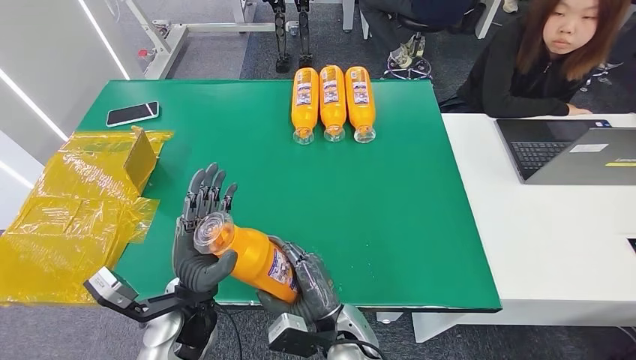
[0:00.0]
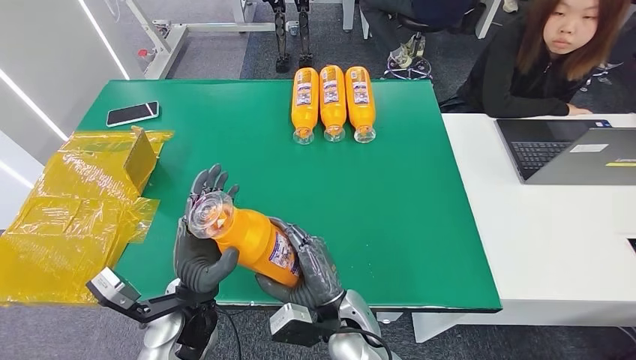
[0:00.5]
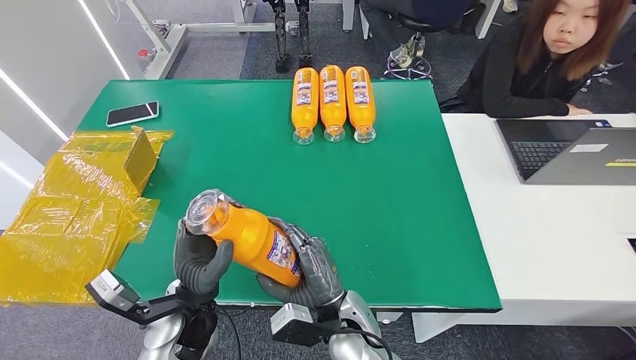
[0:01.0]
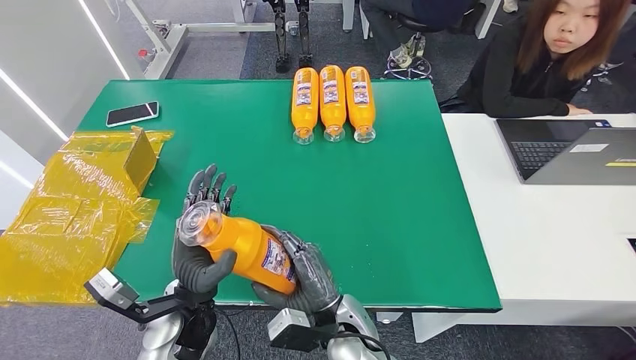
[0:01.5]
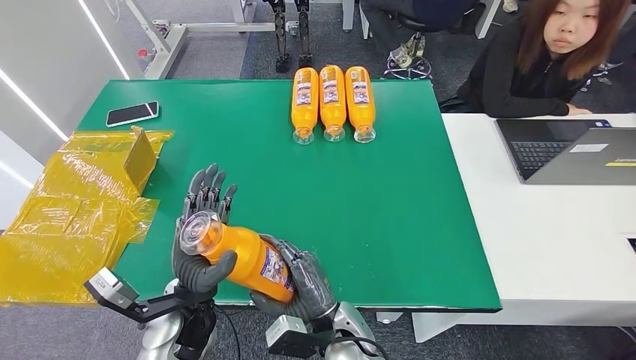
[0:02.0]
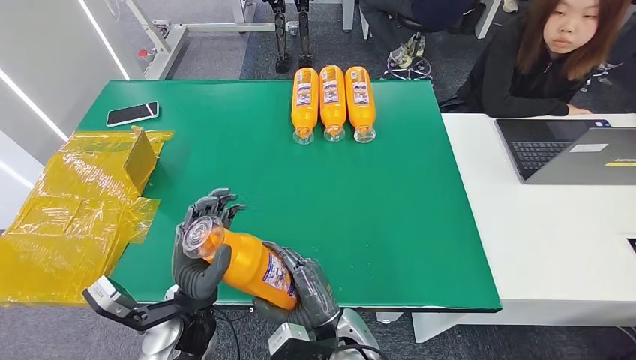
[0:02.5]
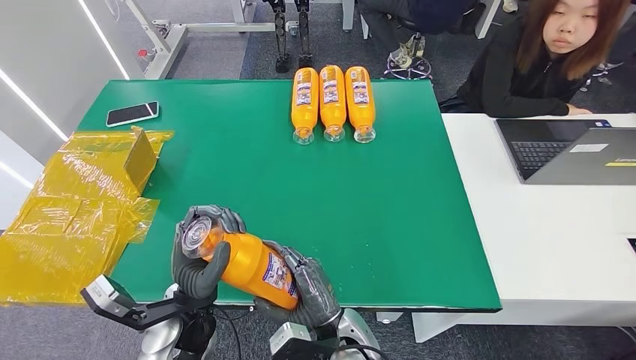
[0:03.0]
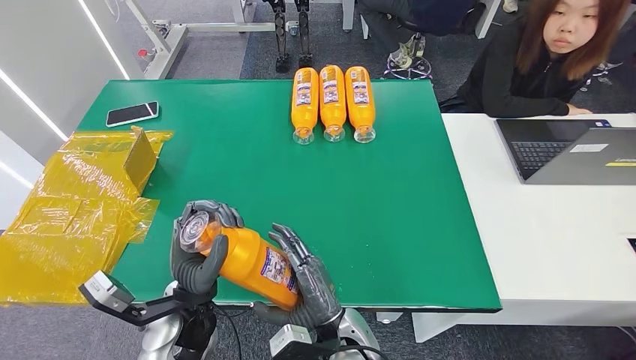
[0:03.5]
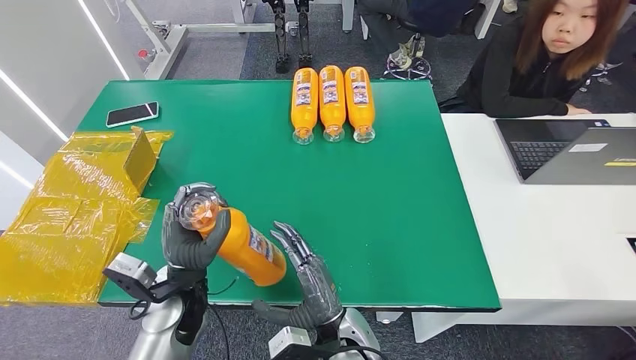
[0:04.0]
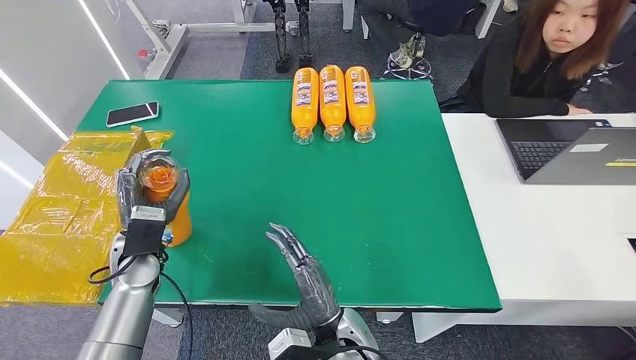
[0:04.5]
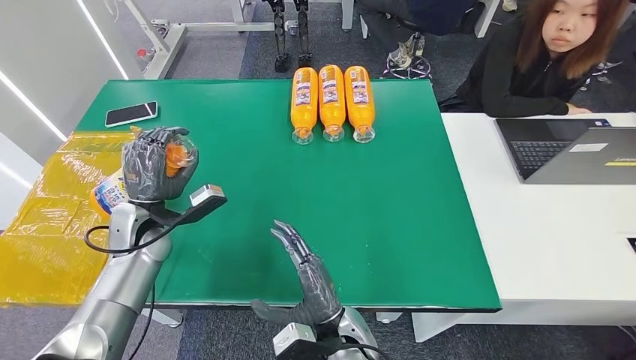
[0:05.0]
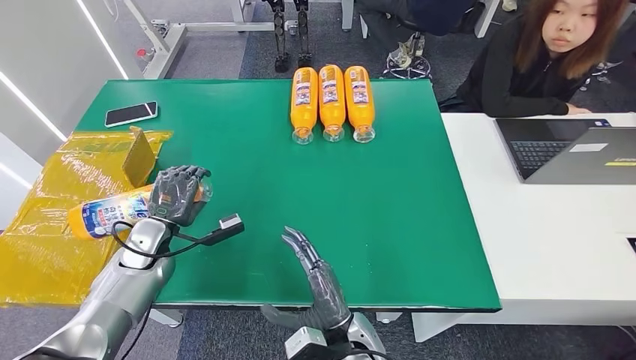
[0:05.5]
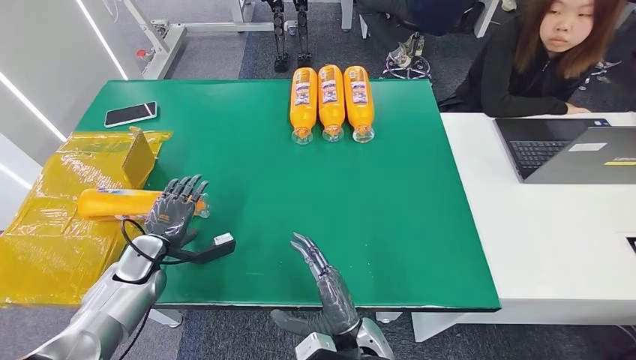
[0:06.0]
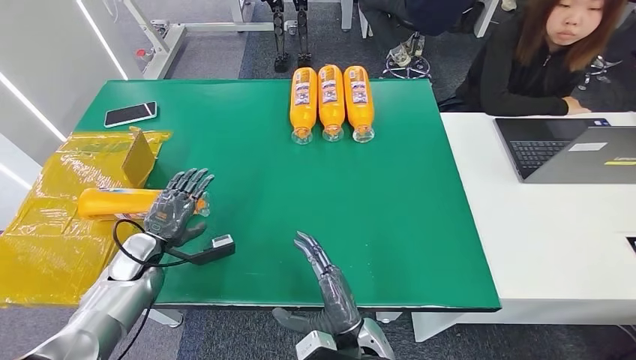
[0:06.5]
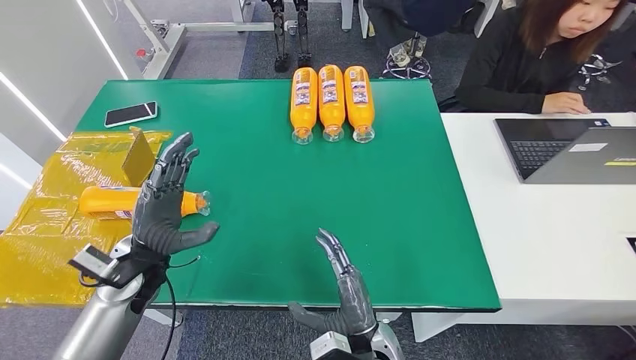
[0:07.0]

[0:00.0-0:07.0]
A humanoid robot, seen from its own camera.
Step, 0:00.0 to 0:07.0: Turn the bottle to the front side.
0:00.0 to 0:02.0: There are only small adjustments of the hands.
0:02.0 to 0:03.5: Both hands stay put.
0:03.5 to 0:05.0: The left hand heads to the left and forward, covering roughly 20 cm.
0:05.0 to 0:07.0: The right hand is displaced to the right by some 5 cm. The left hand moves backward, approximately 5 cm, and moves about 10 cm downward and comes back.

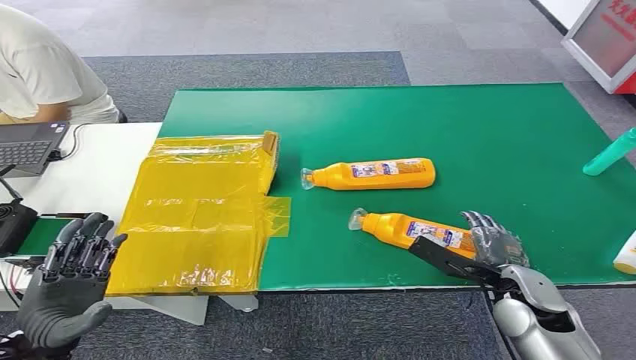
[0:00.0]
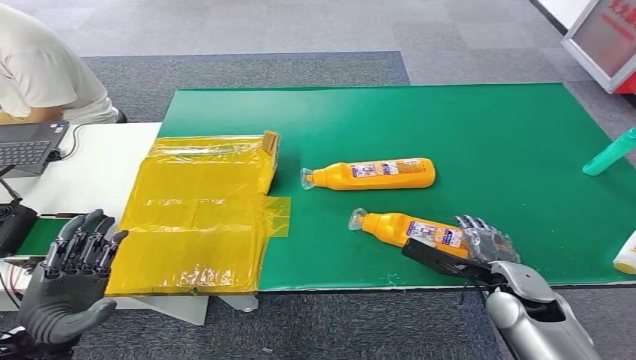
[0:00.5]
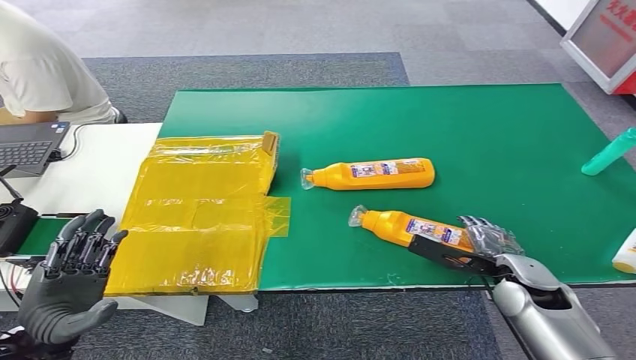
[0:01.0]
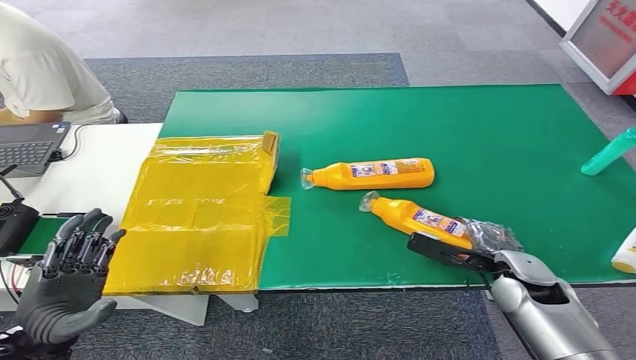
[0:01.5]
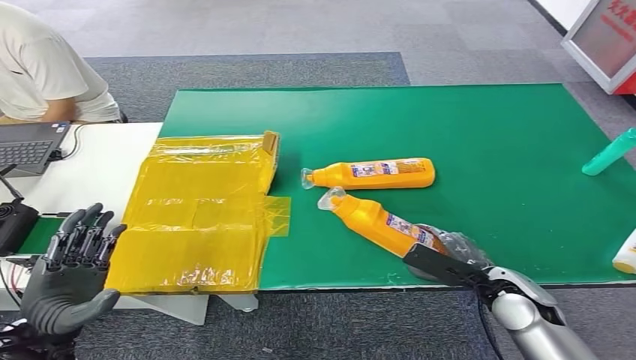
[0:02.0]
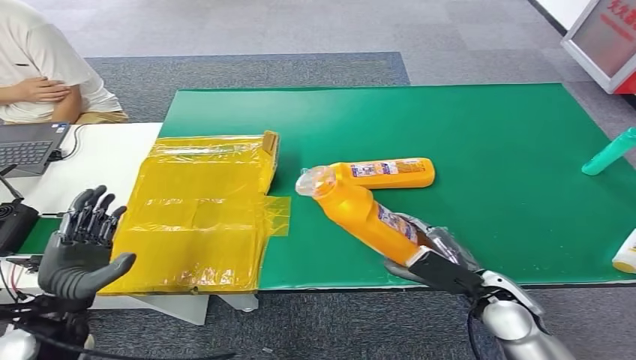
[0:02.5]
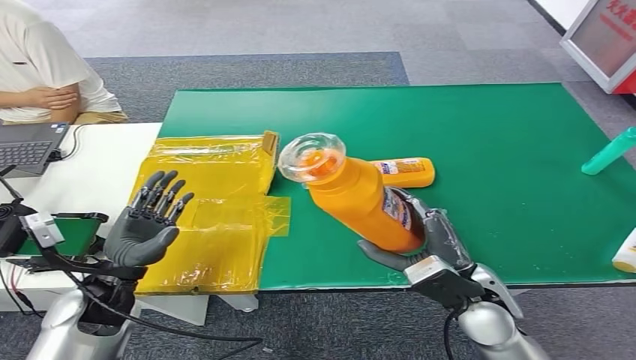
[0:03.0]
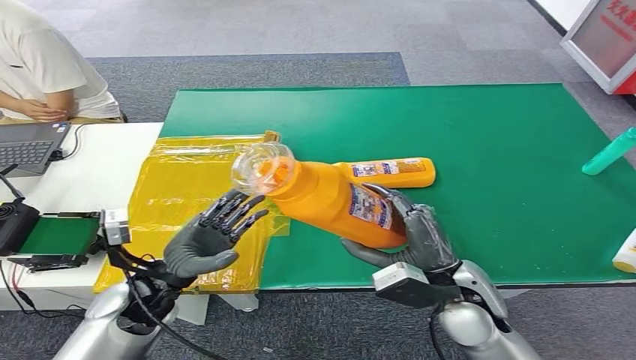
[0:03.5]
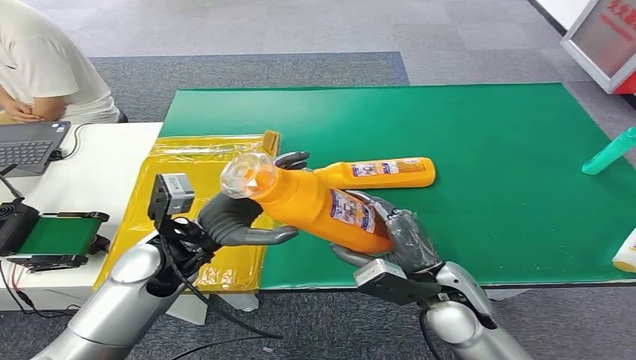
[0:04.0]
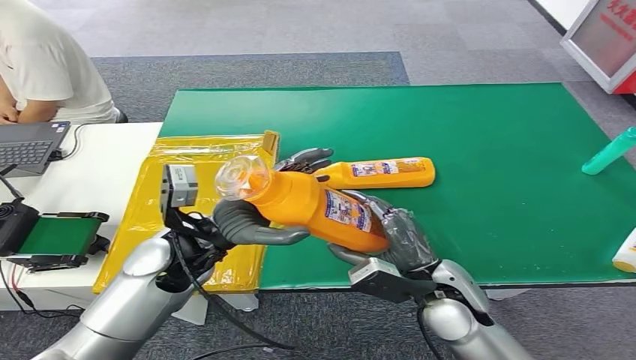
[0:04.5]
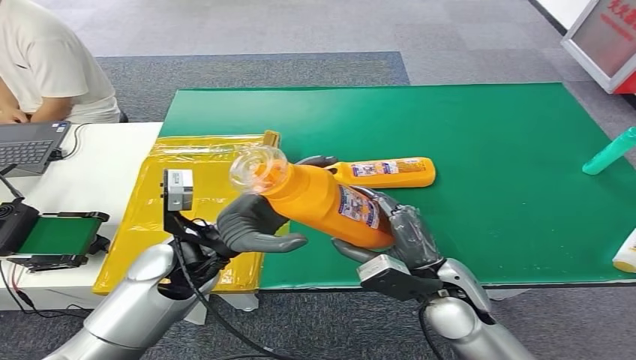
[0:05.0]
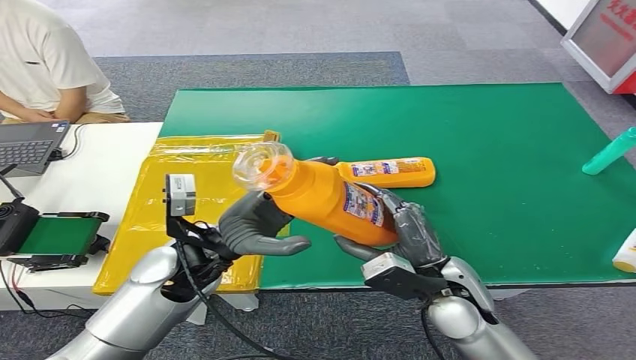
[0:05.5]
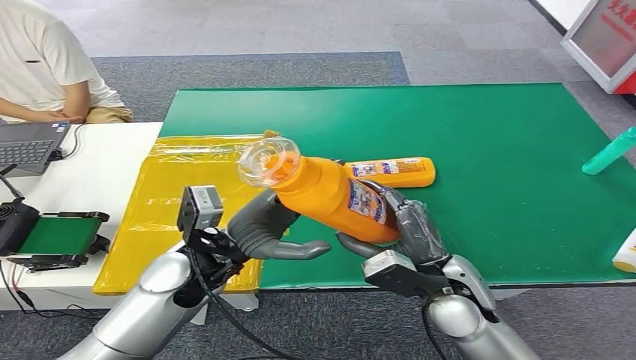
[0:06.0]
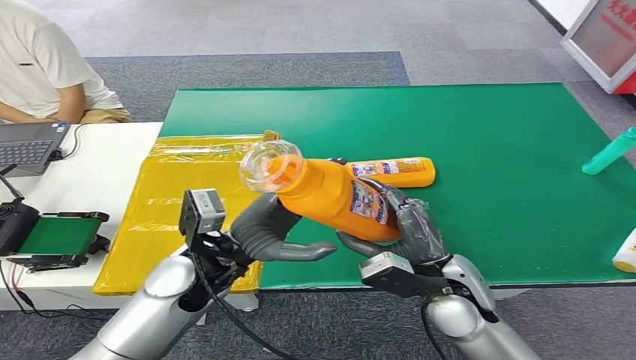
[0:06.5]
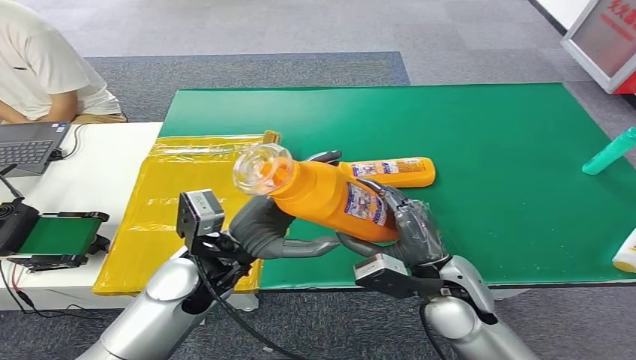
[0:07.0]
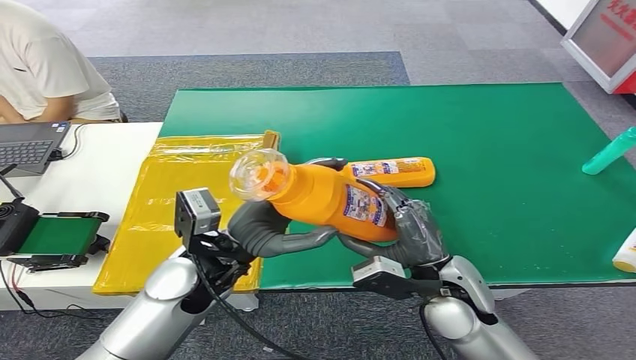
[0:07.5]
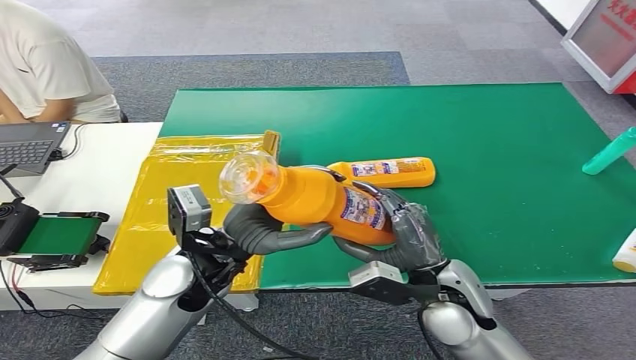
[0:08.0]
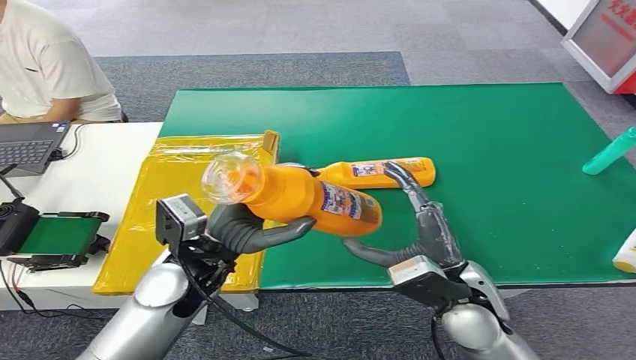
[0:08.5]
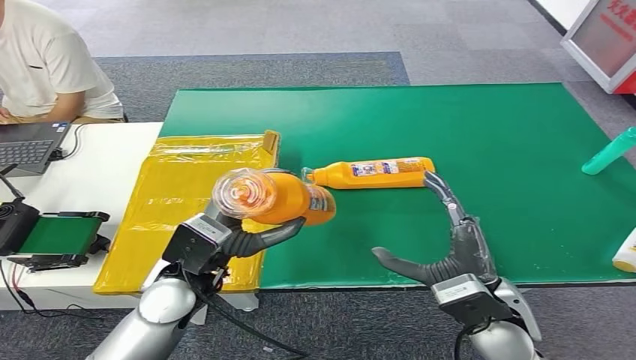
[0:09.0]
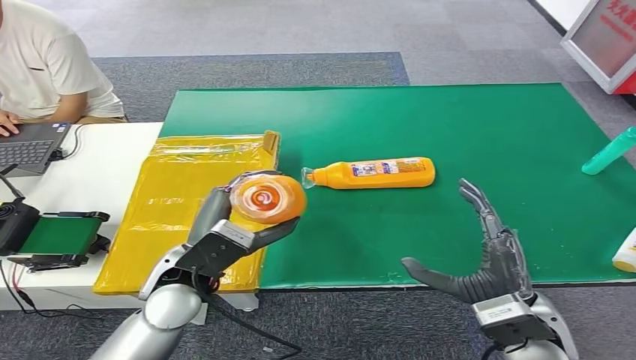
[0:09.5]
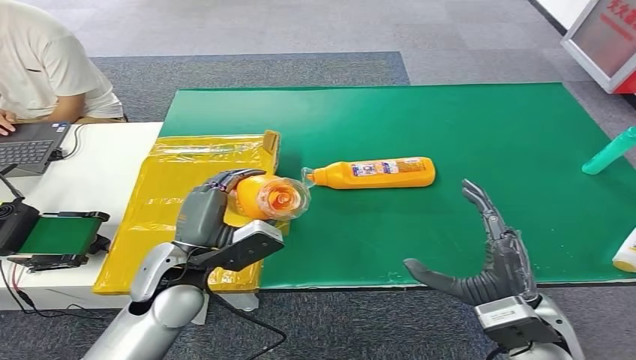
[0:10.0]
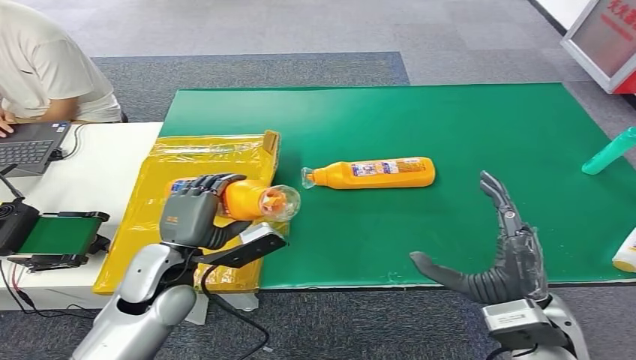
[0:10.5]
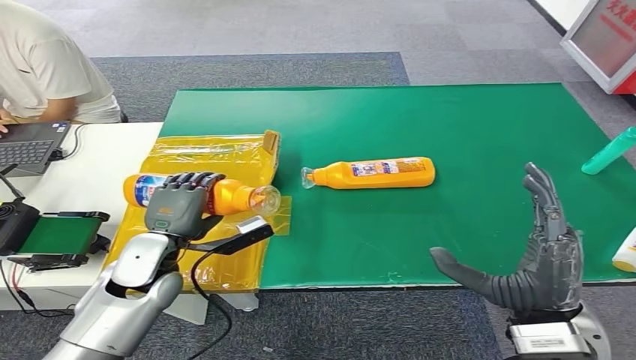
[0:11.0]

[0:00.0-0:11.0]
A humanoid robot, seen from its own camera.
Step, 0:00.0 to 0:03.5: Pick up the bottle from the table.
0:03.5 to 0:05.5: The left hand shifts approximately 10 cm to the right and upward.
0:05.5 to 0:07.5: The hands stay close to where they were, moving slightly.
0:07.5 to 0:09.0: The right hand ends up some 5 cm from where it was.
0:09.0 to 0:11.0: The right hand moves some 5 cm, while the left hand goes about 5 cm to the left.

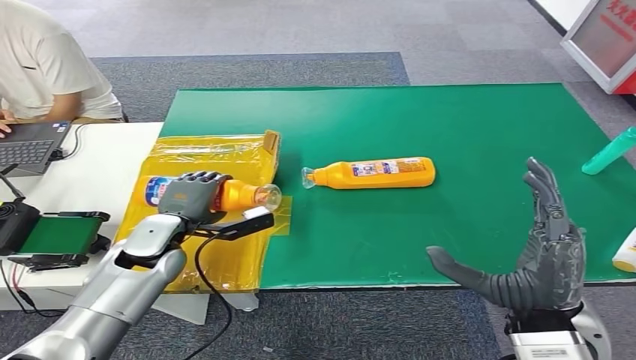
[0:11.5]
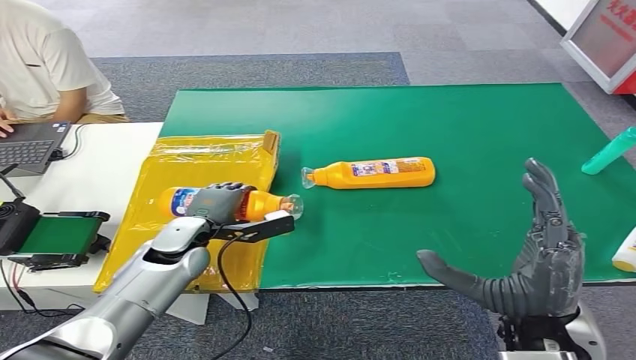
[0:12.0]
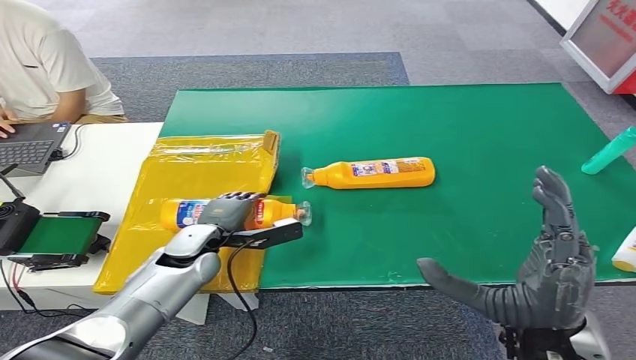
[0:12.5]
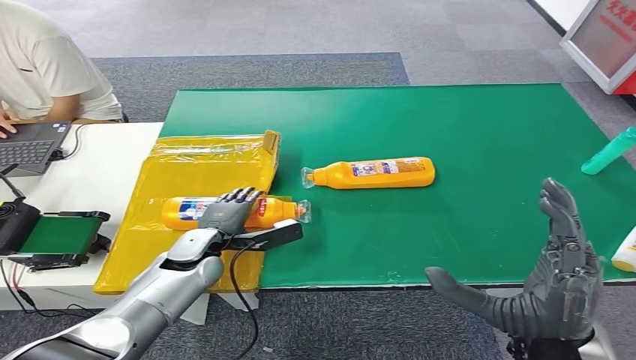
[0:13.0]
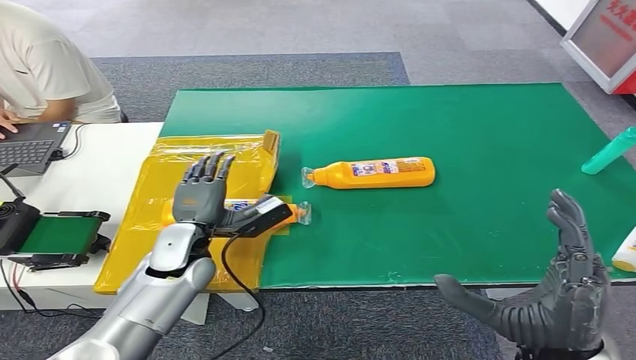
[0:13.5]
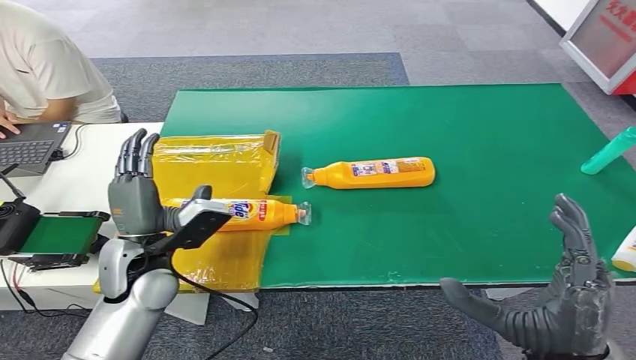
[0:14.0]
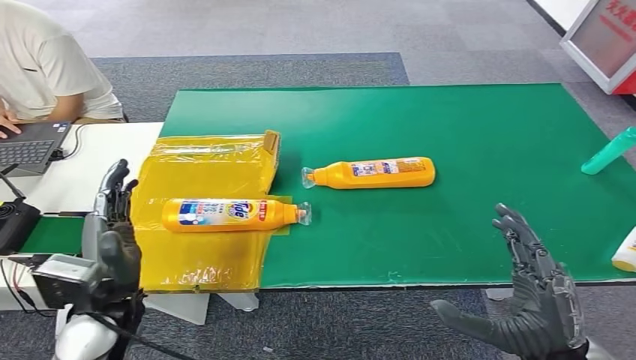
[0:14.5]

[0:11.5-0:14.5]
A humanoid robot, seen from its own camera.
Step, 0:11.5 to 0:14.5: Turn the bottle to the front side.
0:11.5 to 0:13.0: The left hand goes approximately 5 cm downward.
0:13.0 to 0:14.5: The left hand heads backward and upward, covering about 15 cm.
